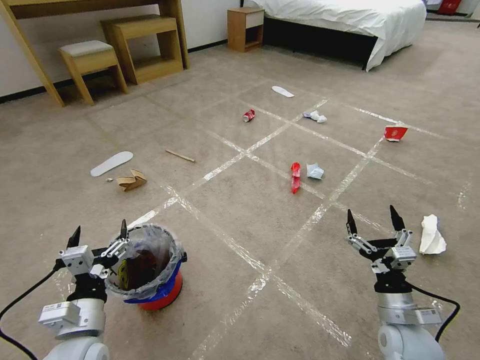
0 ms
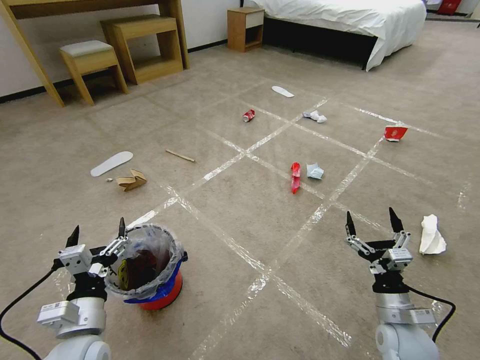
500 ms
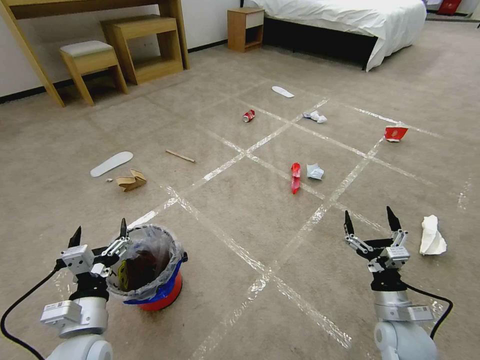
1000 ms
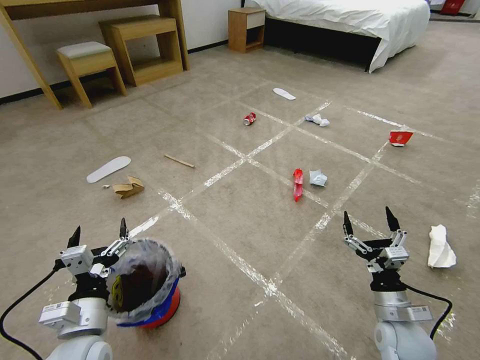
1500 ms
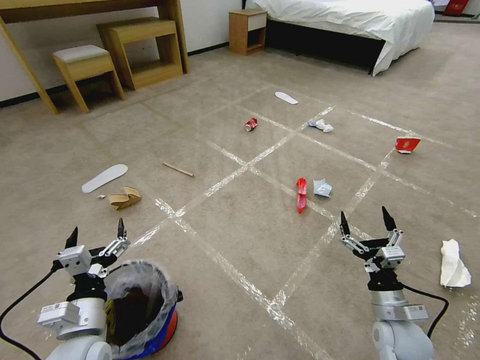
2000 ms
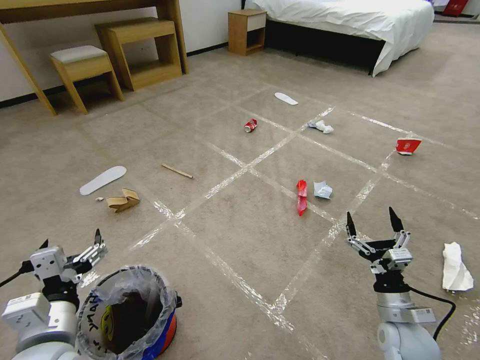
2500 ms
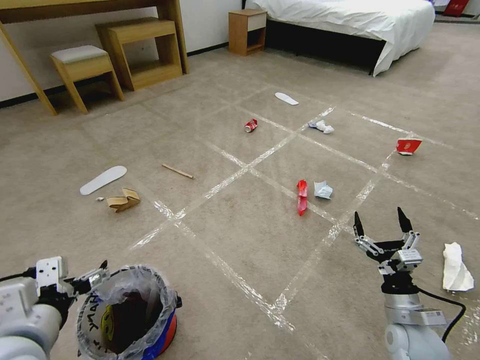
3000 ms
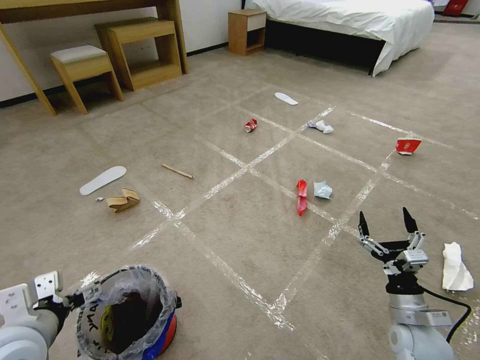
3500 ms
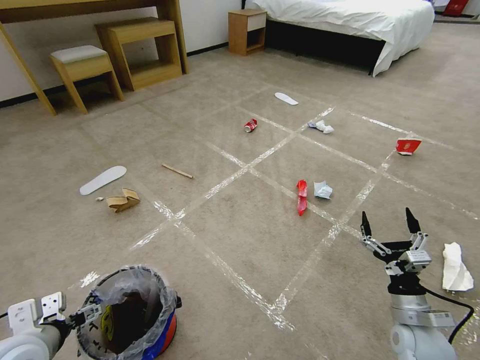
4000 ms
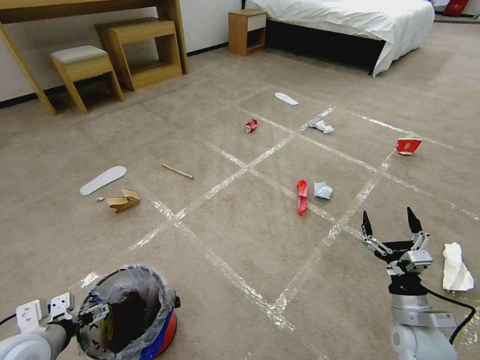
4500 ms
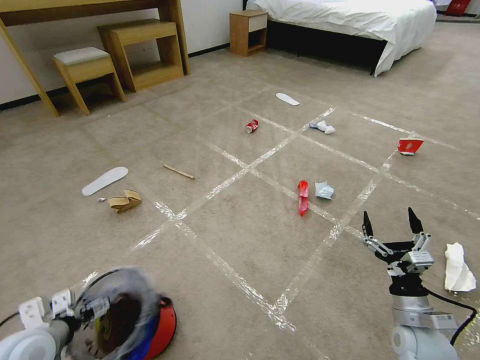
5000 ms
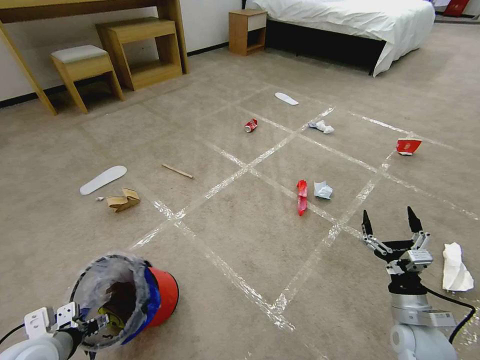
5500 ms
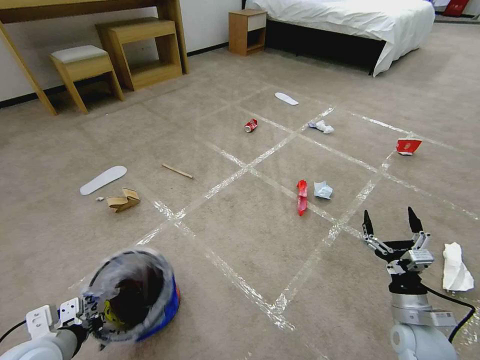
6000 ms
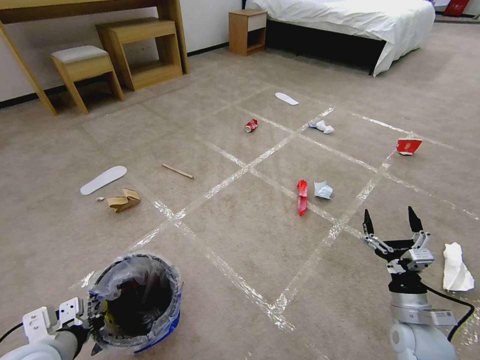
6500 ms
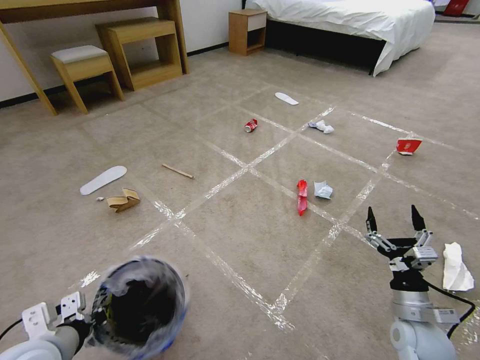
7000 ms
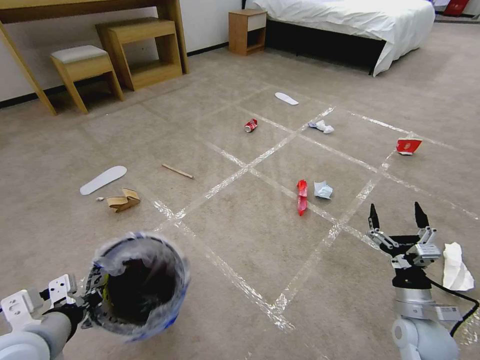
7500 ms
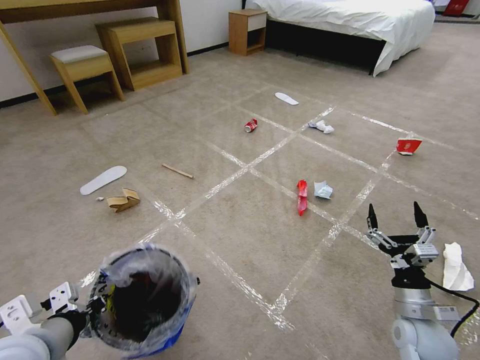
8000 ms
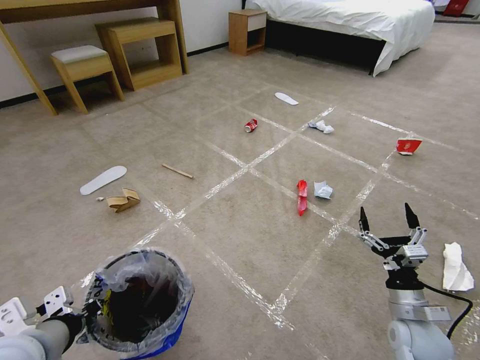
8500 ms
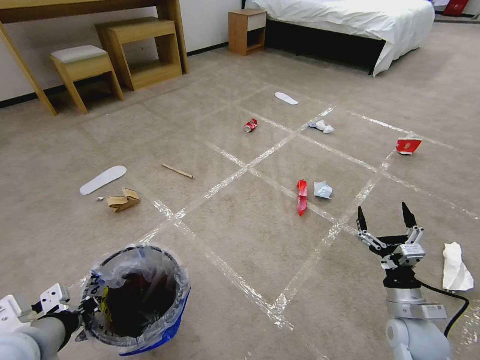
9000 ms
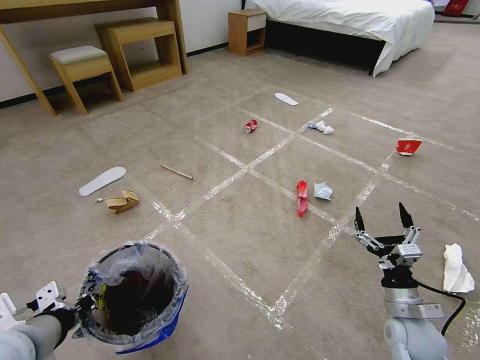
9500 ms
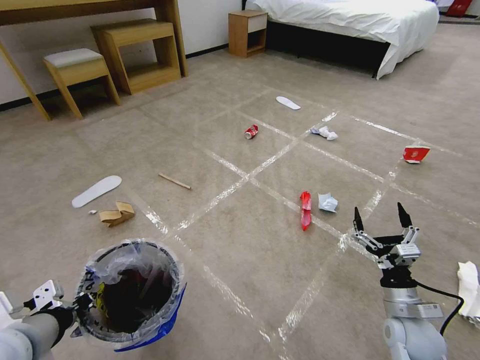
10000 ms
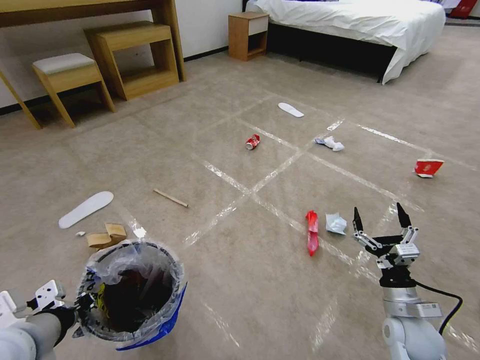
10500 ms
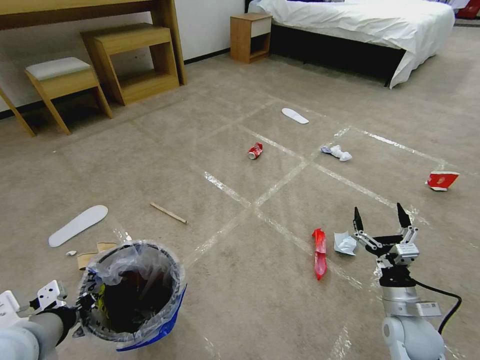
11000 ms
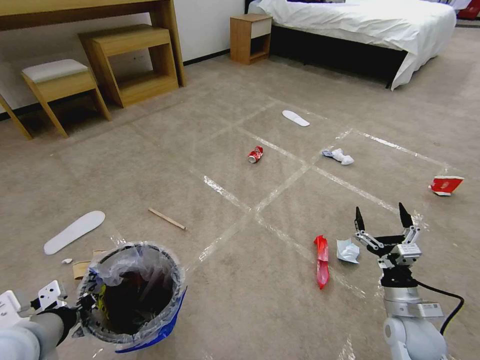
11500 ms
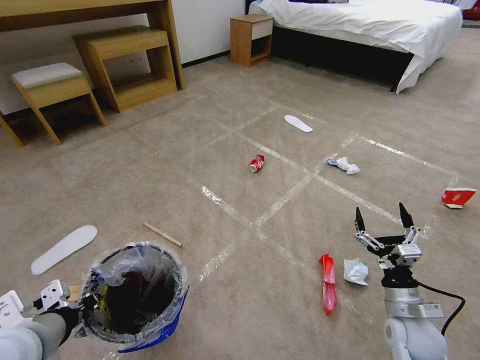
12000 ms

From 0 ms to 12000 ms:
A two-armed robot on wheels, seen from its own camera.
Task of the whole recording: Pick up the trash bin and place the garbage on the floor into it.
From 2000 ms to 4000 ms: The left gripper travels to the left by some 10 cm, and goes upward and returns, roughly 15 cm each way.
From 4000 ms to 6000 ms: The left gripper closes.
From 6000 ms to 8000 ms: The left gripper is displaced upward by roughly 10 cm.

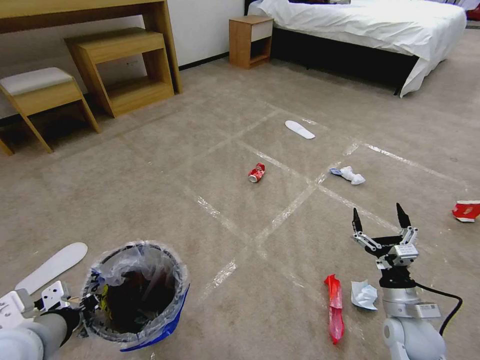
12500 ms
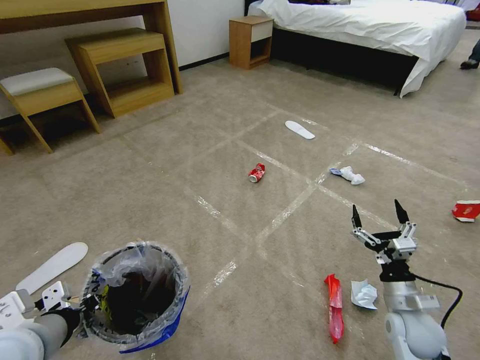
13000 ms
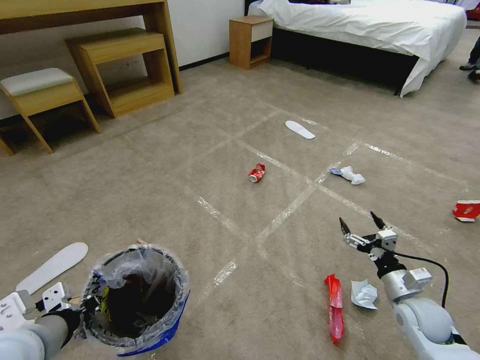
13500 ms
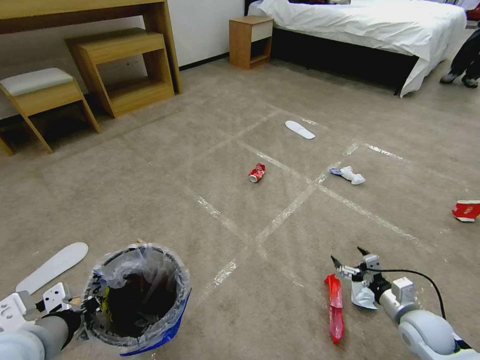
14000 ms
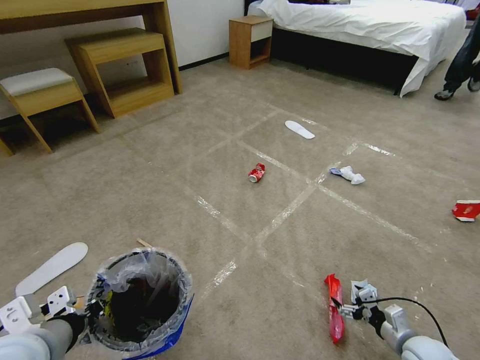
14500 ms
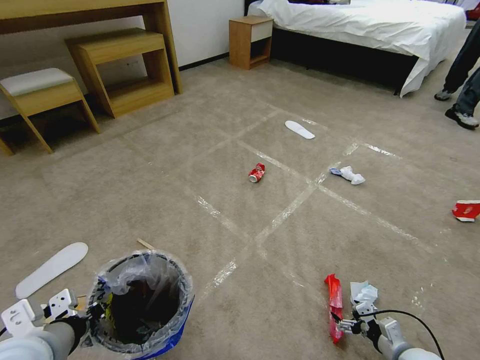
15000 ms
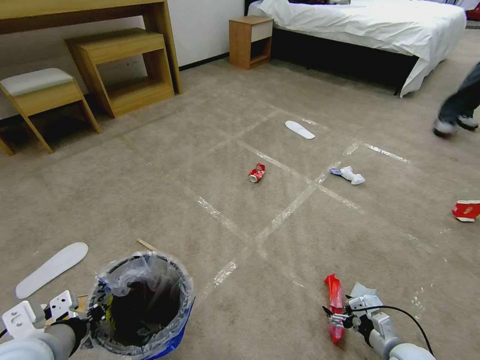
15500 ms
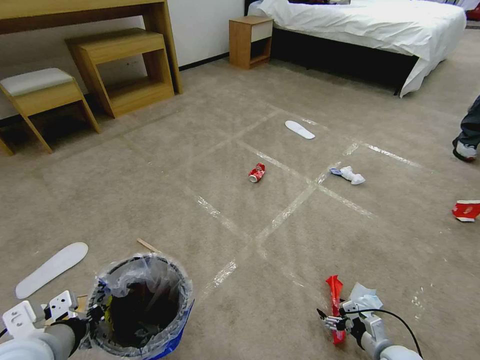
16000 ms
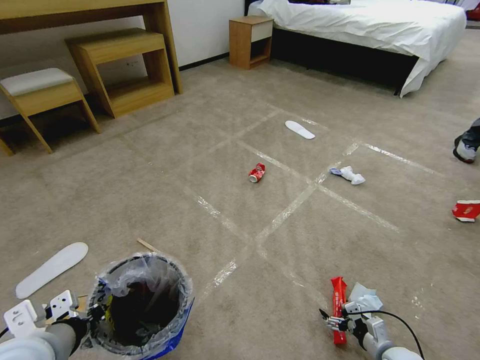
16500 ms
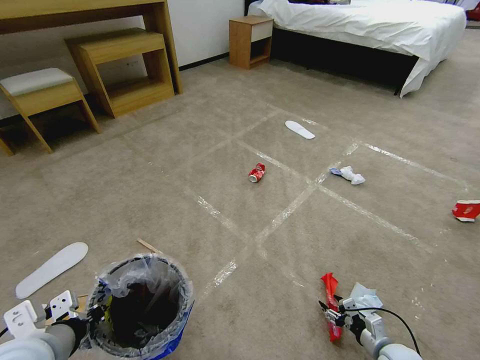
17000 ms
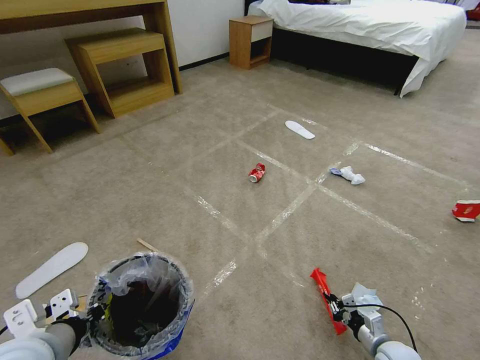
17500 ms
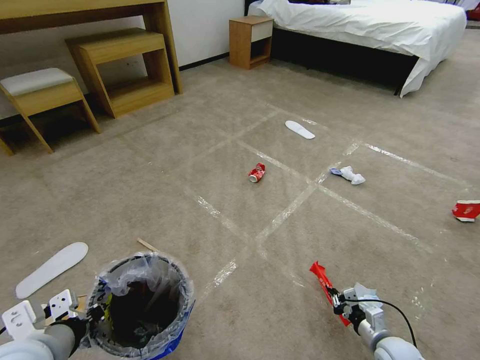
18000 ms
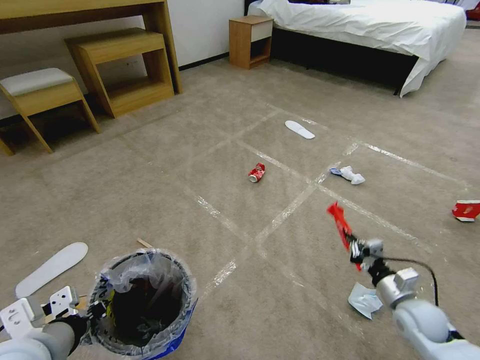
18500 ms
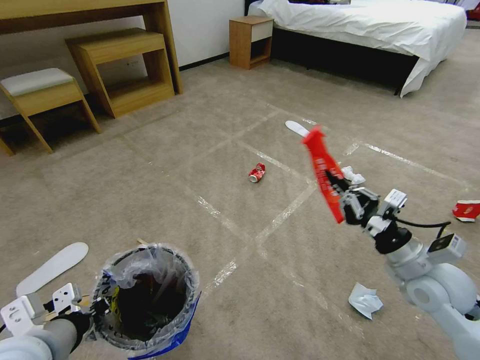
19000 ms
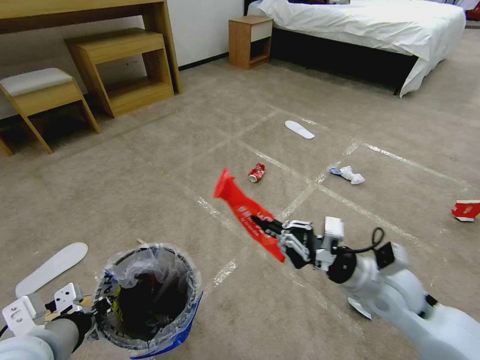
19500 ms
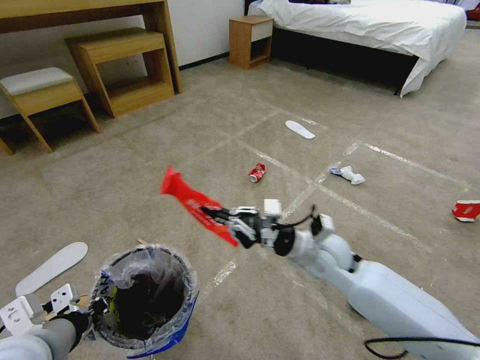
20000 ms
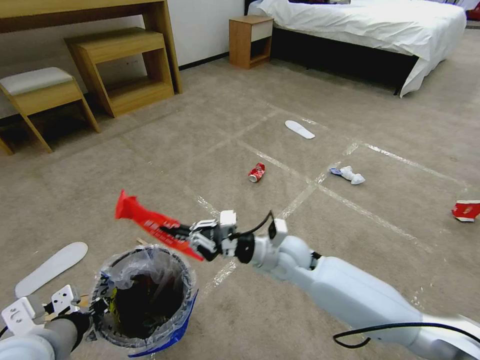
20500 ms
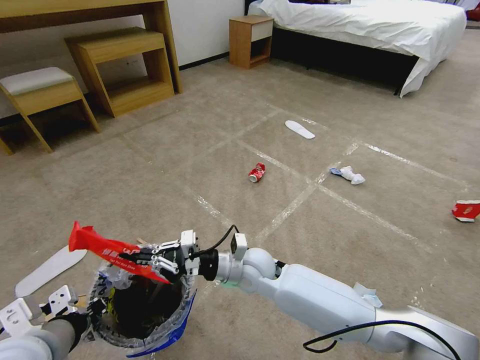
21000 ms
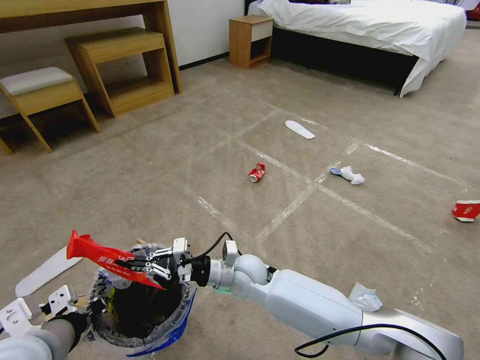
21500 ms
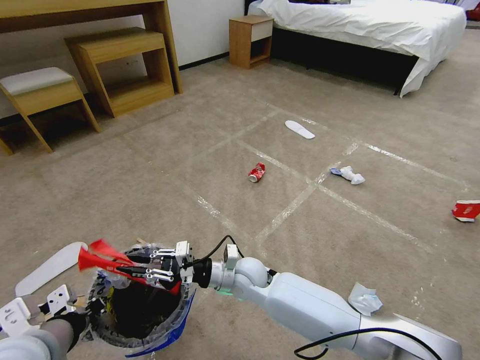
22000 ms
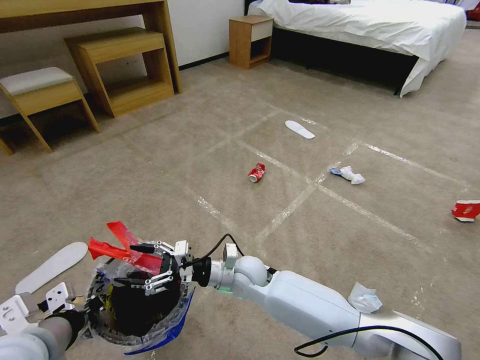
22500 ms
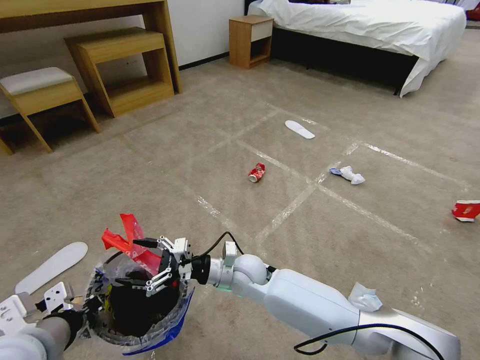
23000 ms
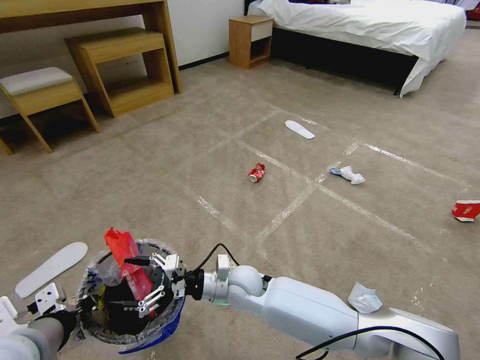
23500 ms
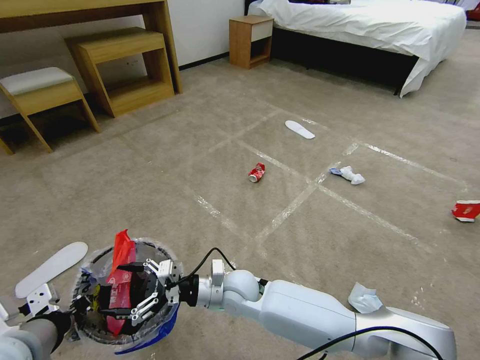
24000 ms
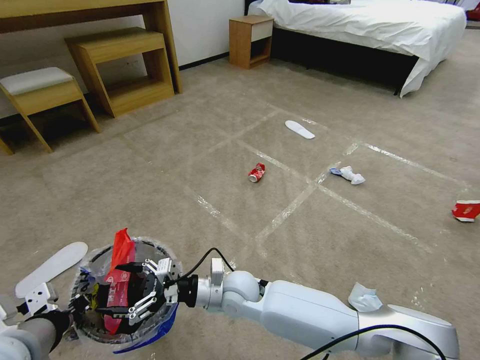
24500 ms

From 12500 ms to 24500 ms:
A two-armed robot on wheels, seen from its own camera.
Task of the whole recording: Pick up the trash bin and place the garbage on the floor into it.
From 12500 ms to 14500 ms: The right gripper goes approximately 10 cm downward and to the right.
From 14500 ms to 16500 ms: The right gripper goes some 5 cm downward.
From 16500 ms to 18500 ms: The right gripper travels upward and forward by roughly 15 cm, and closes its fingers.
From 18500 ms to 20500 ms: The right gripper is displaced to the left by approximately 30 cm.
From 20500 ms to 22500 ms: The right gripper travels to the left and downward by roughly 10 cm, and opens up.
From 22500 ms to 24500 ms: There are only small adjustments of the grippers.

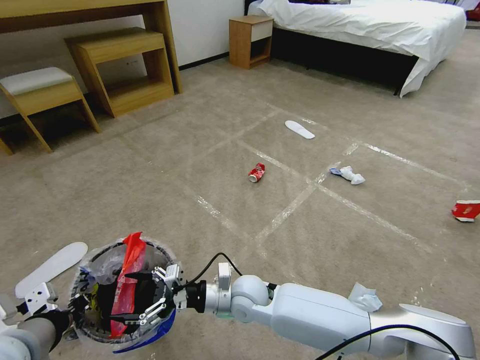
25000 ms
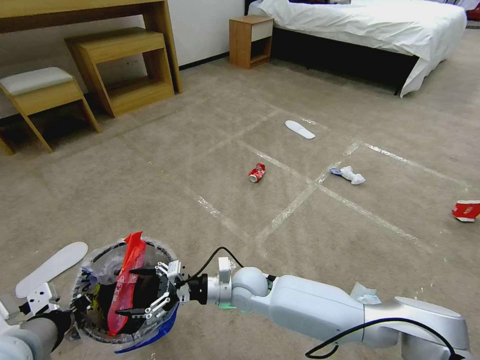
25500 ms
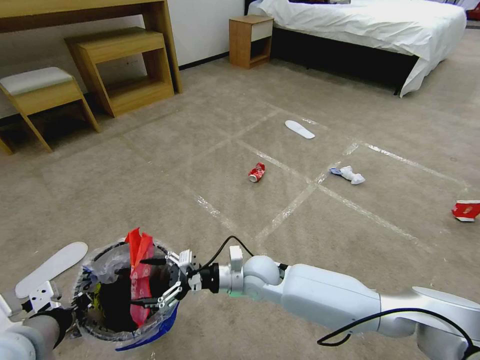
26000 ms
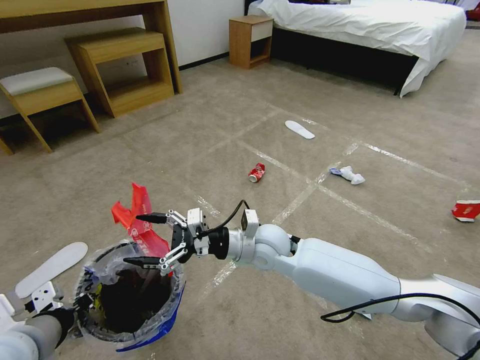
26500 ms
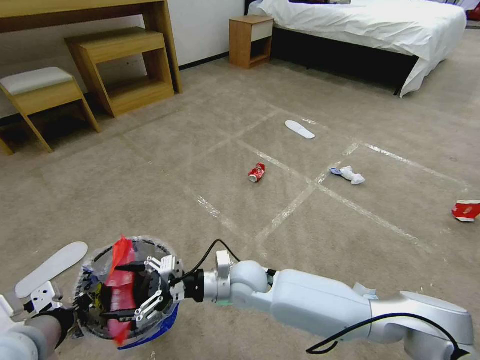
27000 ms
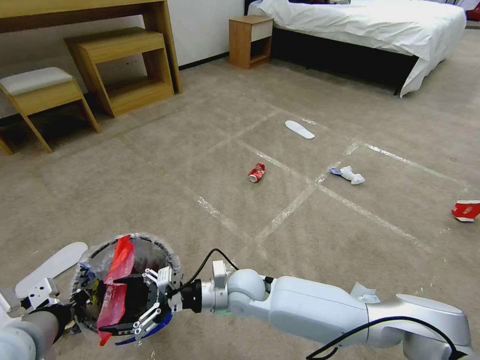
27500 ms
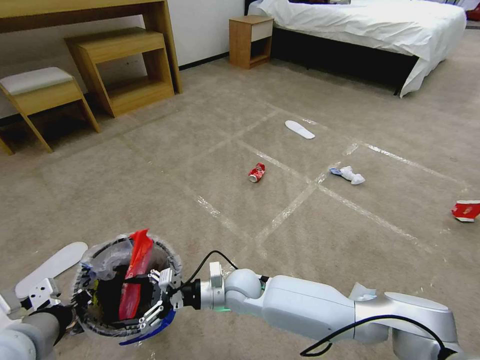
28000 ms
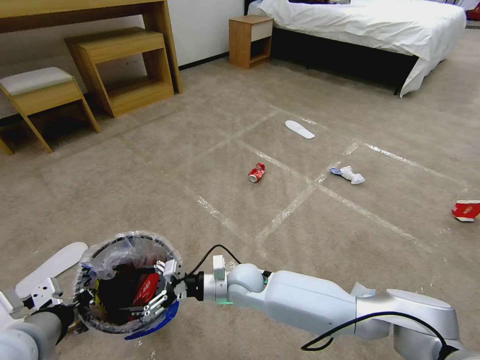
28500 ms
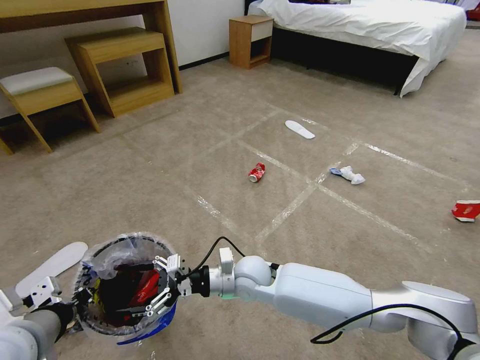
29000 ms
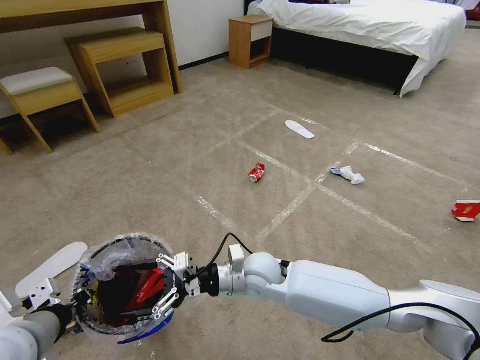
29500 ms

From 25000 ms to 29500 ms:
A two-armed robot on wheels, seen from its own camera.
Task of the whole recording: Pick up the trash bin and place the garbage on the floor into it.
From 25000 ms to 27000 ms: The right gripper travels upward and back again, roughly 10 cm each way.
